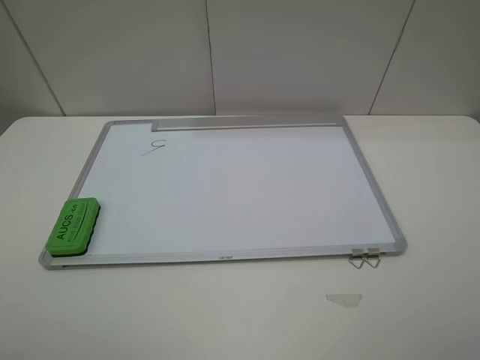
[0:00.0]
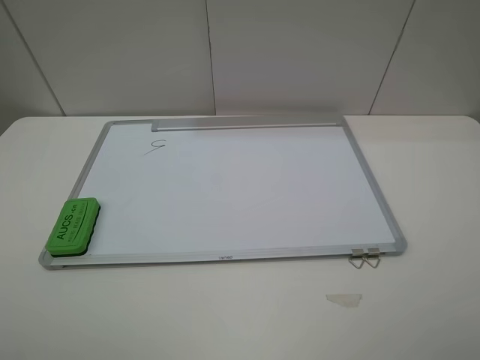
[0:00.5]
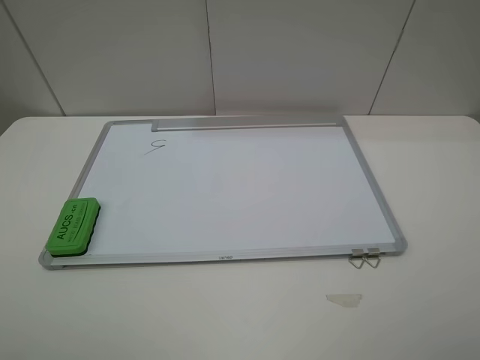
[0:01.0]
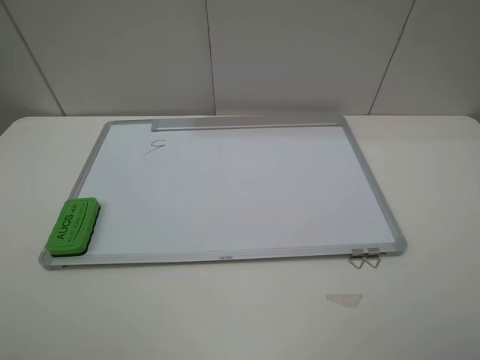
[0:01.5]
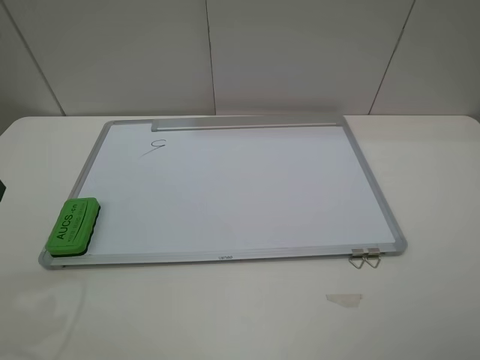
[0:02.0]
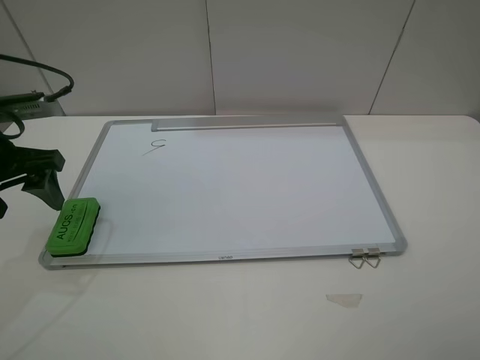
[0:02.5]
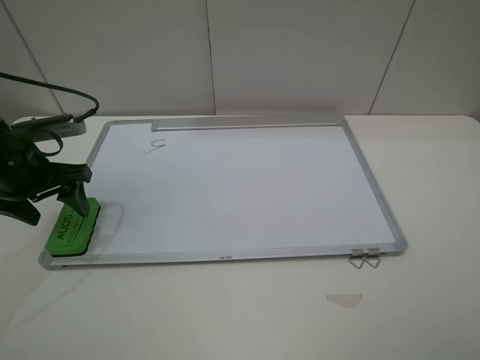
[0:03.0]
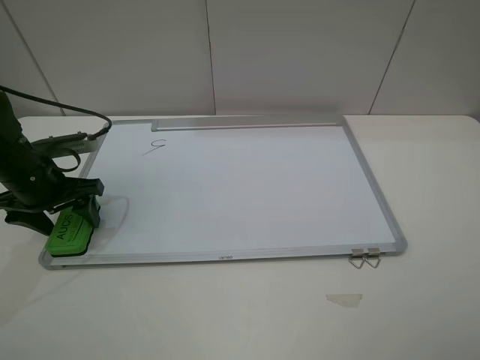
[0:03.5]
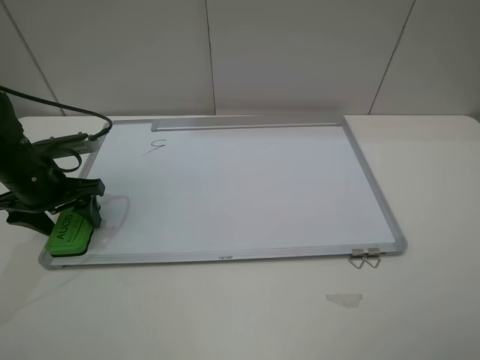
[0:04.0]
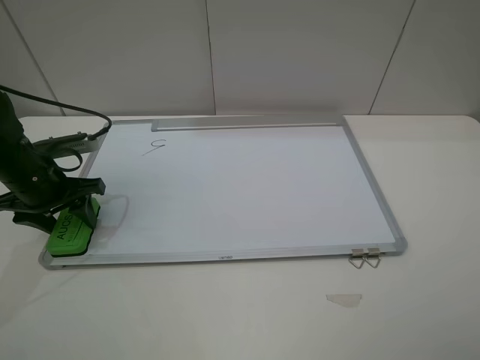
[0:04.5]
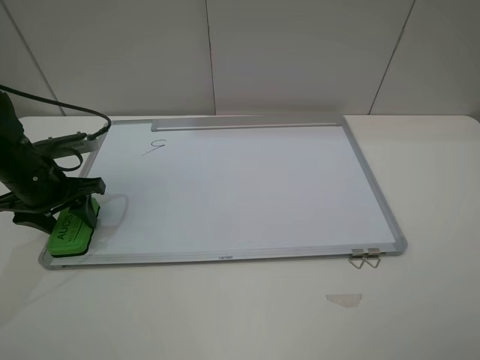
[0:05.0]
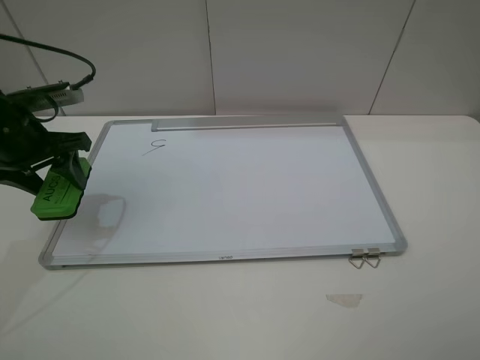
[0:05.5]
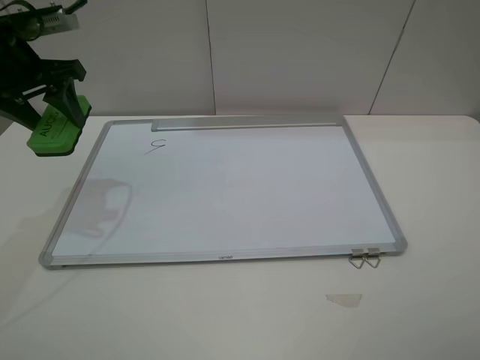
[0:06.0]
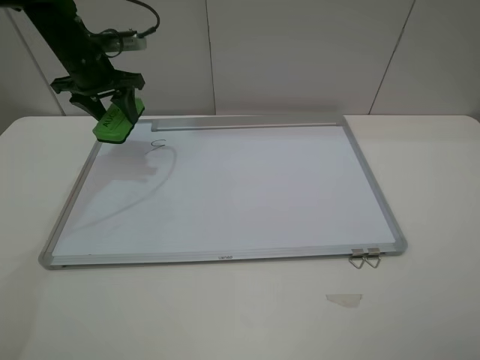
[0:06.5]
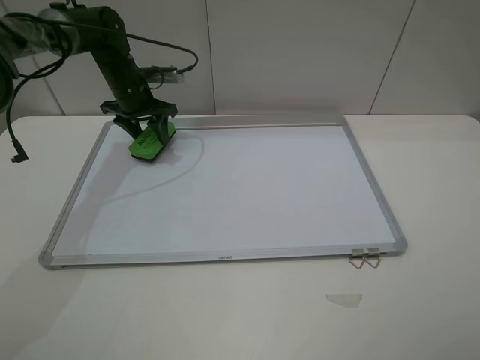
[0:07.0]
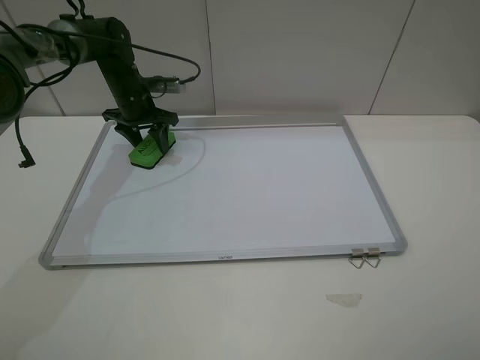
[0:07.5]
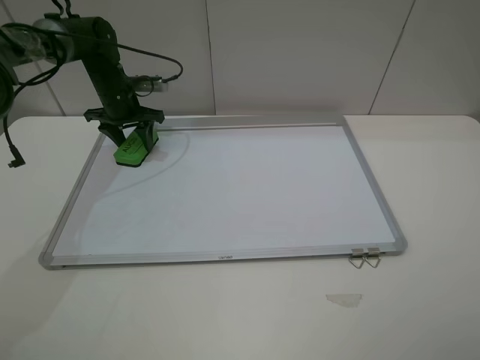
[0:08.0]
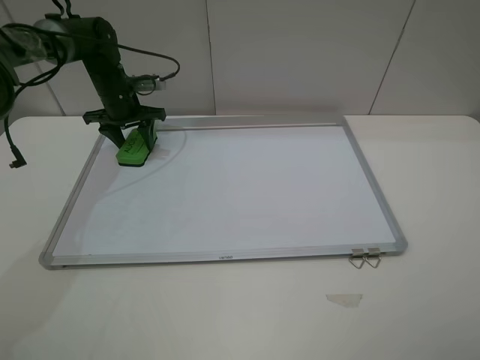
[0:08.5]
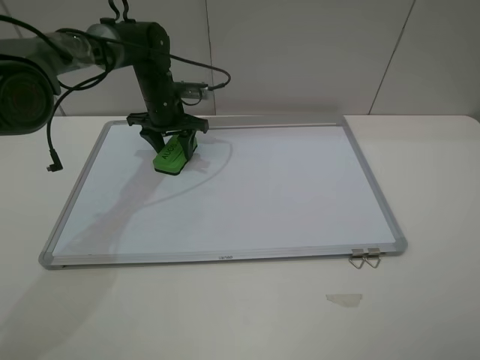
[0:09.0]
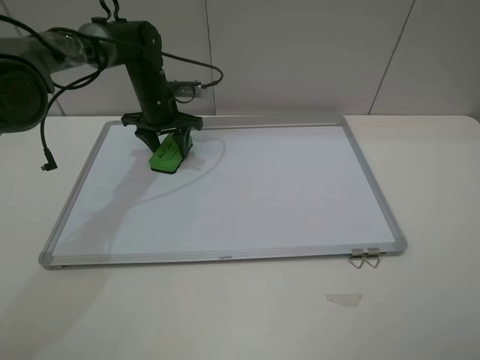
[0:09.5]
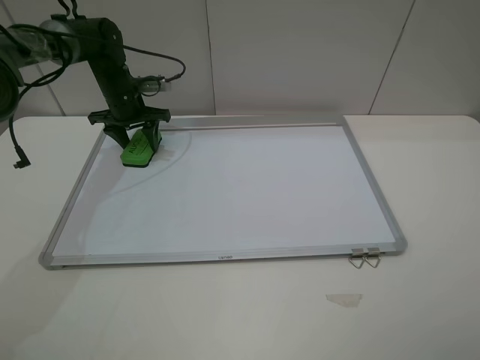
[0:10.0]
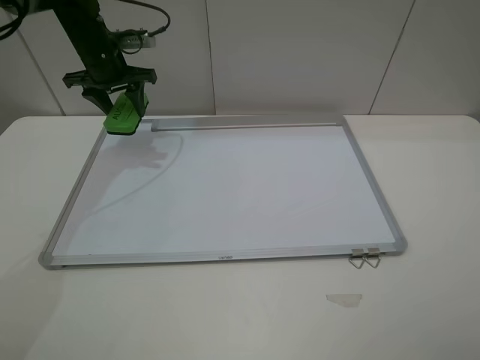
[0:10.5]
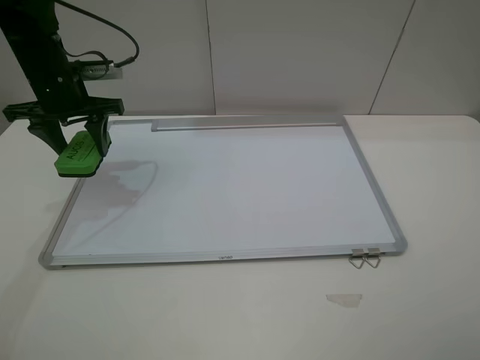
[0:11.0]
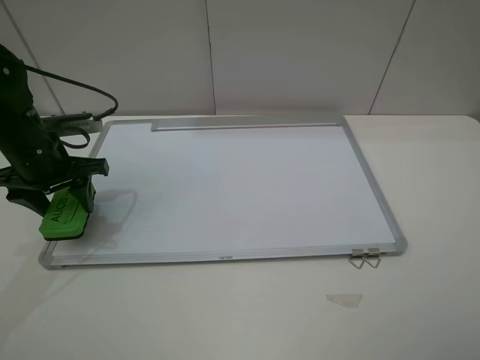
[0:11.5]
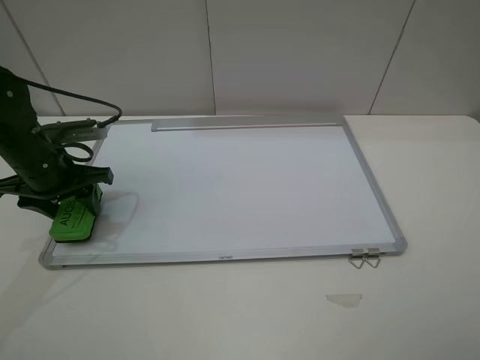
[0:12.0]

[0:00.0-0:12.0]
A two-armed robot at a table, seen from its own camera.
Step, 0:00.0 to 0:05.0: Grasp the eraser with the left gripper.
Step, 0:05.5 to 0:10.0: Grasp the eraser and wipe the blackboard with the left gripper.
0:02.0 to 0:04.0: The left gripper goes roughly 20 cm downward and forward.
0:04.0 to 0:06.0: The left gripper shifts approximately 15 cm upward and forward, and closes.
0:06.0 to 0:08.0: The left gripper is displaced forward and downward by roughly 20 cm.
0:08.0 to 0:10.0: The left gripper goes to the right and returns, about 10 cm each way.
0:10.0 to 0:12.0: The left gripper moves backward, about 20 cm.

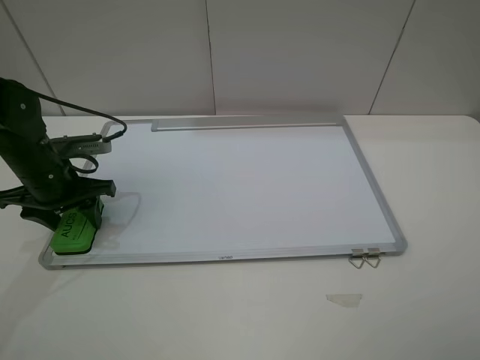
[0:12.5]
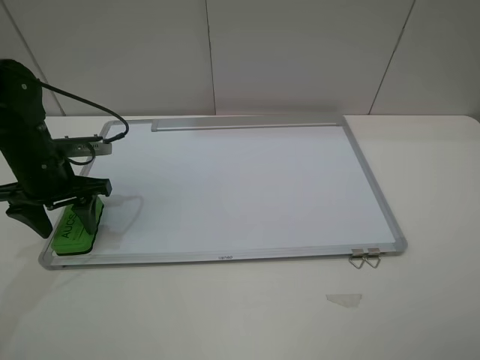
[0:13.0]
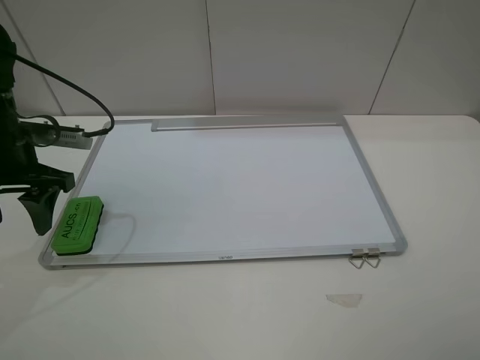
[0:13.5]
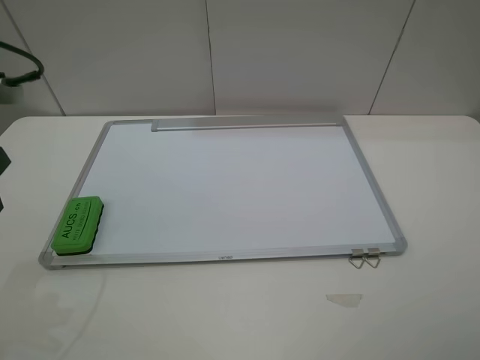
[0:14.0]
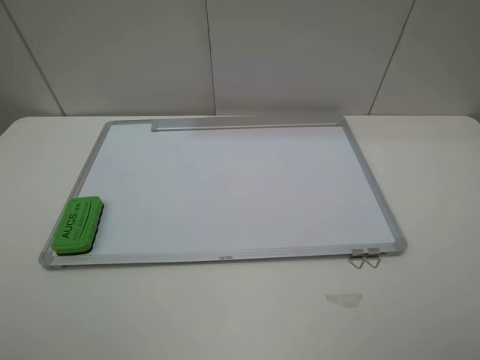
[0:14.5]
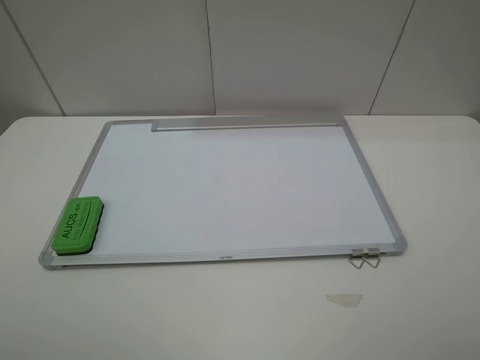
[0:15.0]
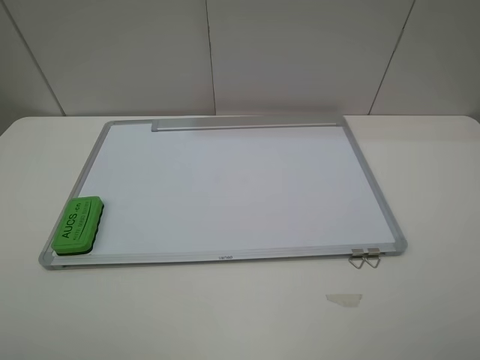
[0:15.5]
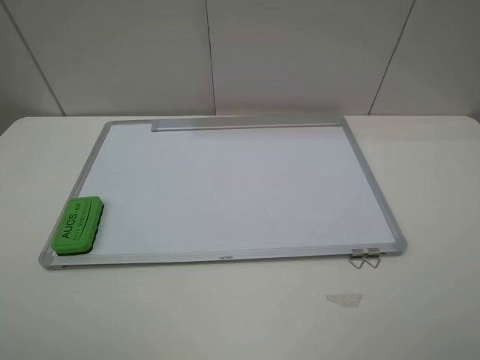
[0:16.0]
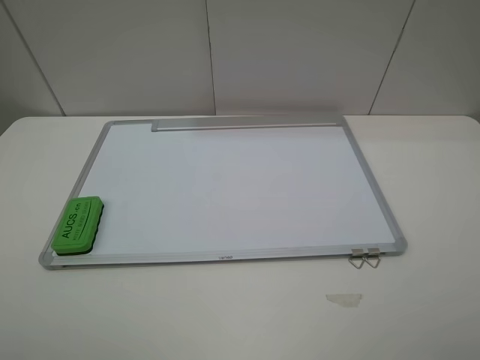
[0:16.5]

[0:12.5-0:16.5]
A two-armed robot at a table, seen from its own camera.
0:12.5 to 0:14.5: The left gripper is displaced backward and upward by about 30 cm.

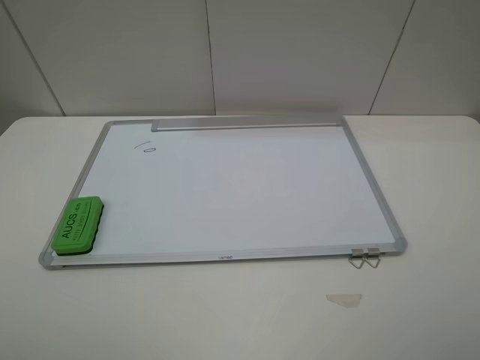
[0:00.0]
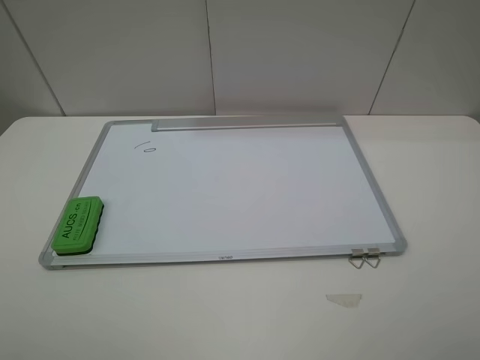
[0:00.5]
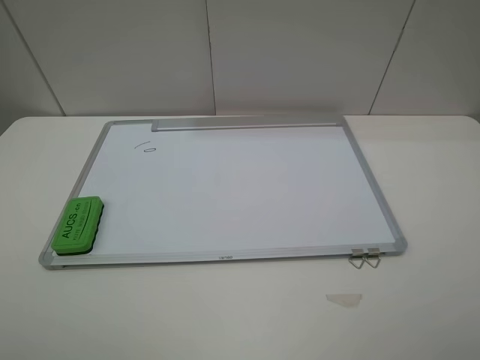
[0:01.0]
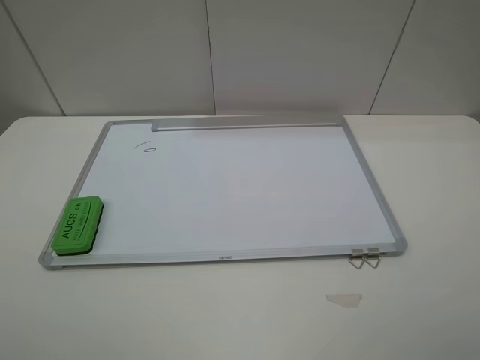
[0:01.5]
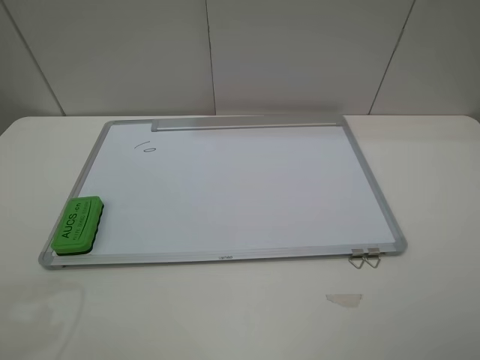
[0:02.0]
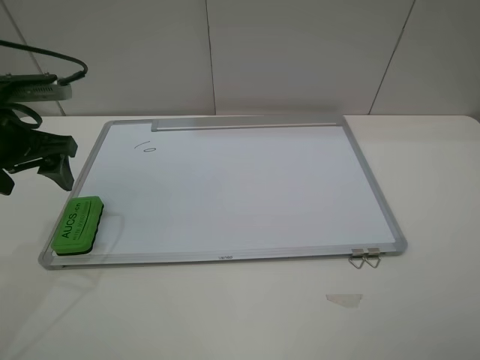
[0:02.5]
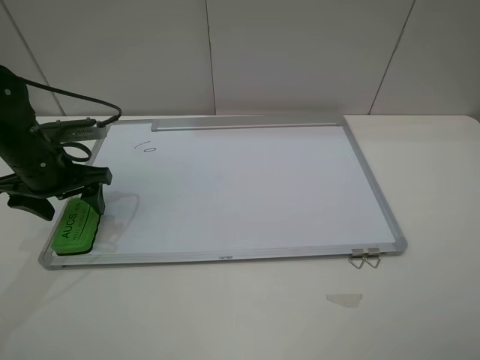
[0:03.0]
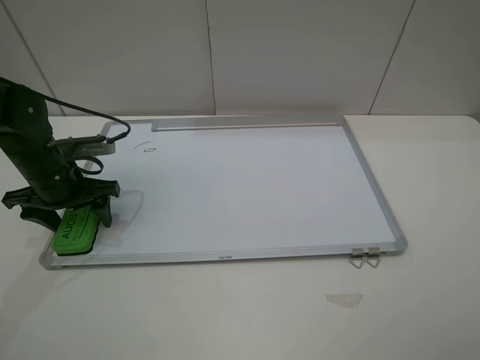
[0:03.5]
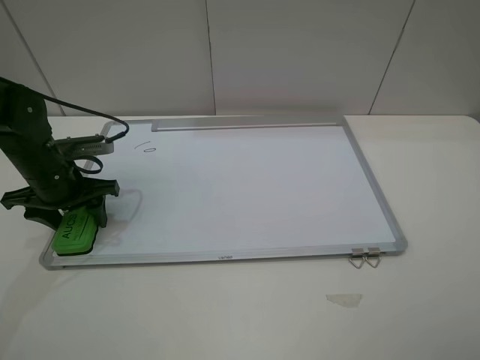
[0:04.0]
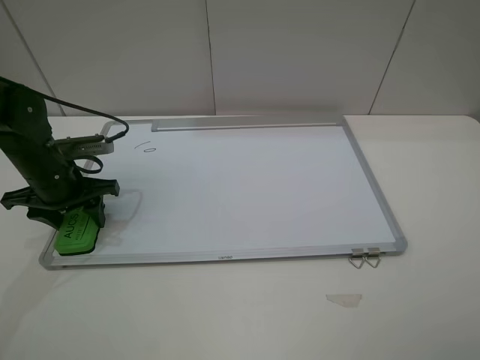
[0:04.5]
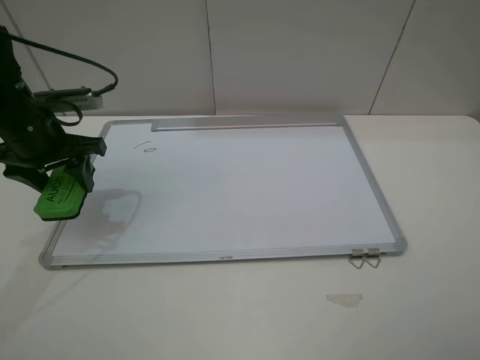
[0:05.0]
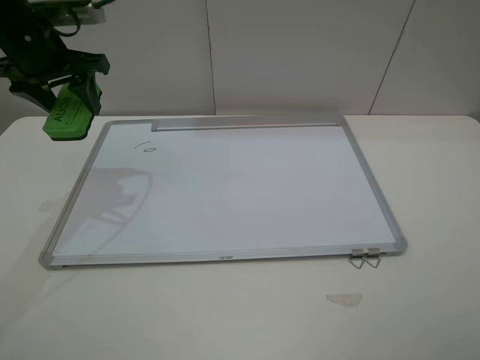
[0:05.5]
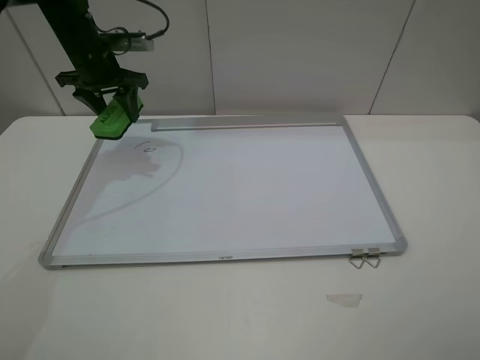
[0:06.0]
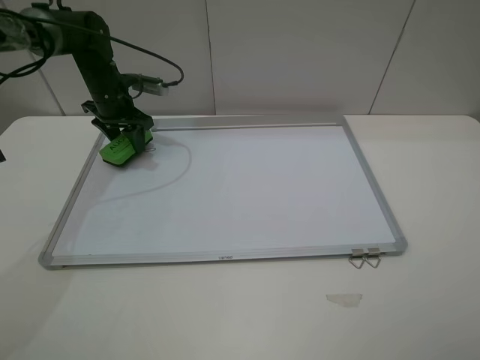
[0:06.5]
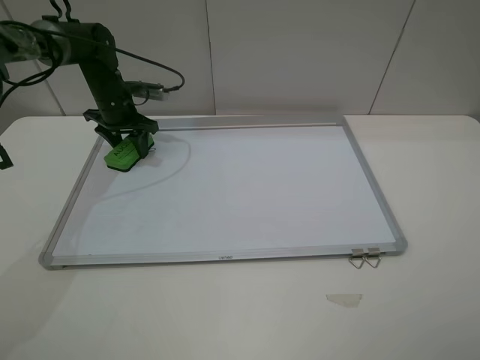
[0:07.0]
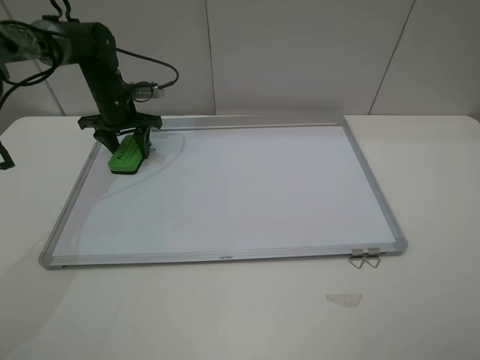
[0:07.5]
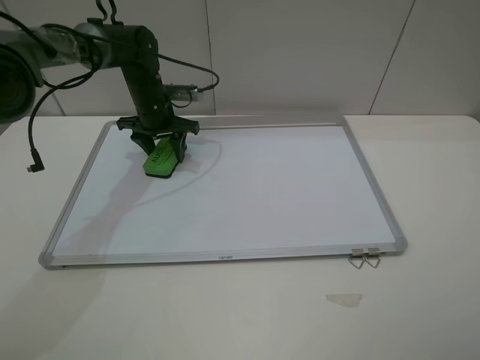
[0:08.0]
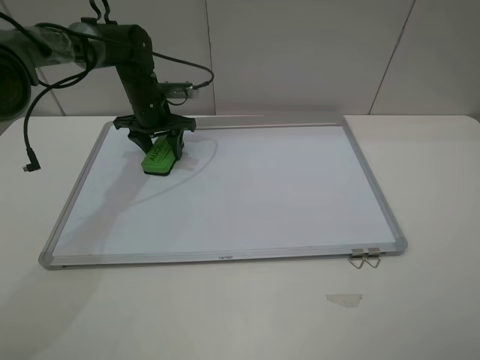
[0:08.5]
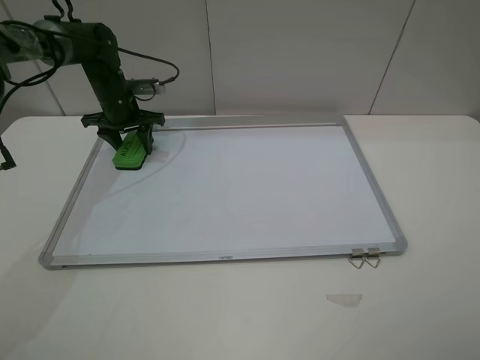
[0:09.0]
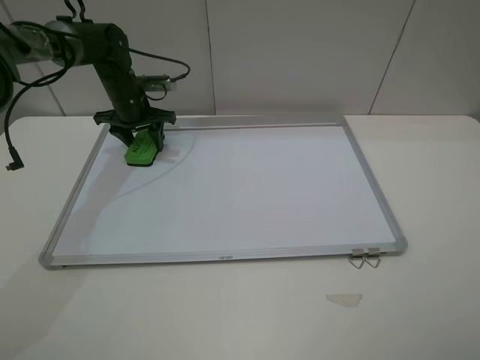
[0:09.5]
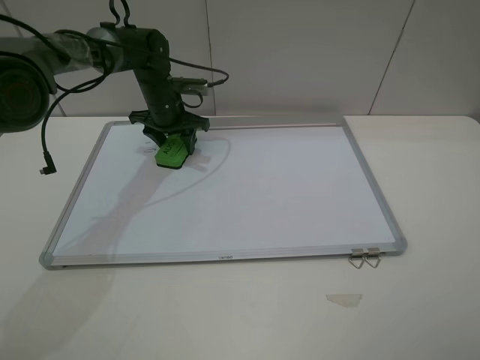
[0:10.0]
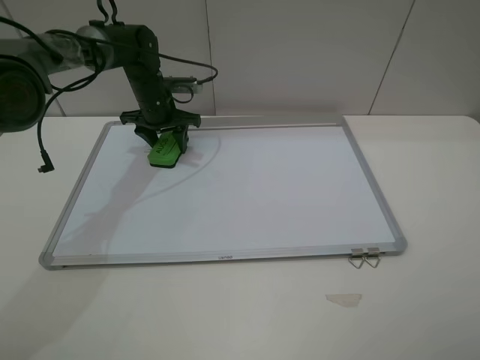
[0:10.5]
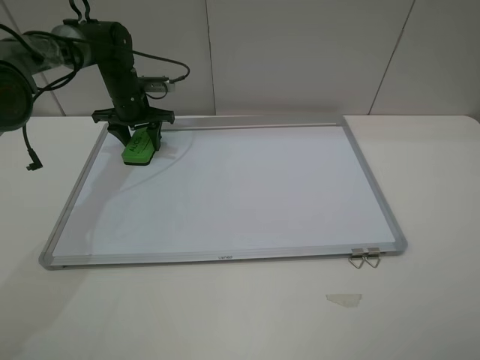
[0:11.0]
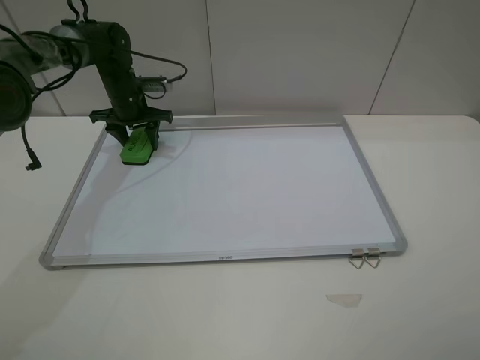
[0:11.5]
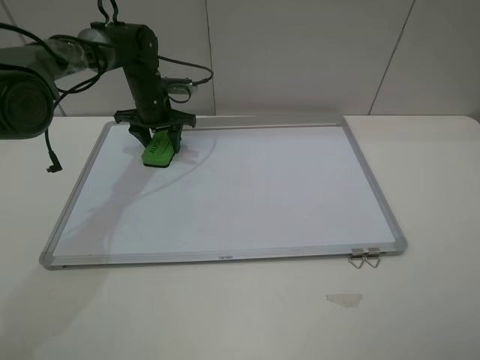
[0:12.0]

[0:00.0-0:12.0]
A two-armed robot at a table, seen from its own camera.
Step, 0:00.0 to 0:04.0: Grasp the eraser with the left gripper.
0:02.0 to 0:04.0: The left gripper is displaced downward and forward by roughly 25 cm, and closes its fingers.
0:04.0 to 0:06.0: The left gripper moves forward and upward, roughly 20 cm.
0:06.0 to 0:08.0: The left gripper heads downward and to the right, covering about 10 cm.
0:08.0 to 0:10.0: The left gripper travels to the left and back again, some 10 cm each way.
0:10.0 to 0:12.0: The left gripper travels to the left and back again, approximately 10 cm each way.
